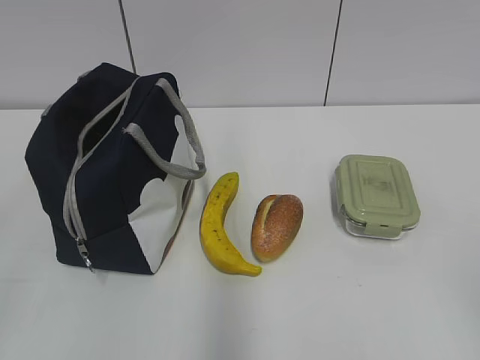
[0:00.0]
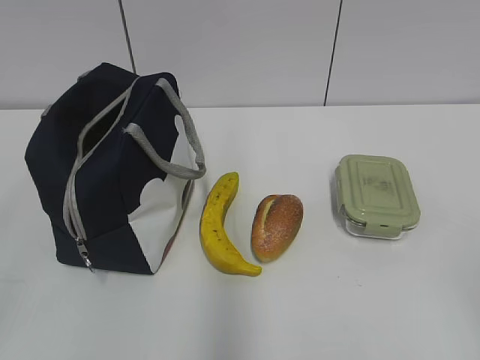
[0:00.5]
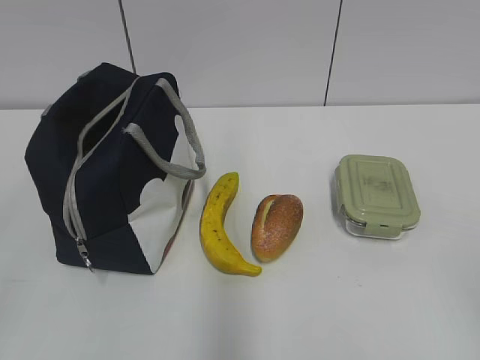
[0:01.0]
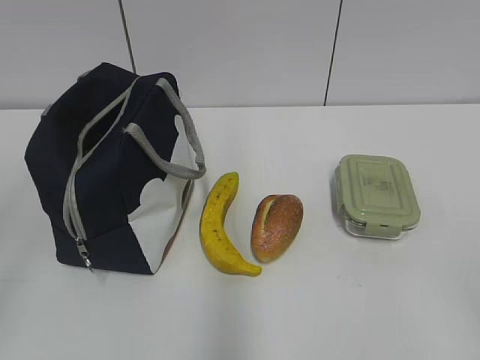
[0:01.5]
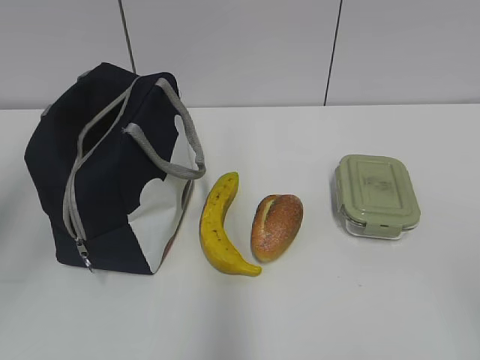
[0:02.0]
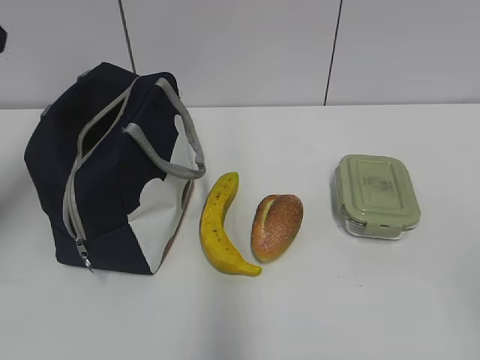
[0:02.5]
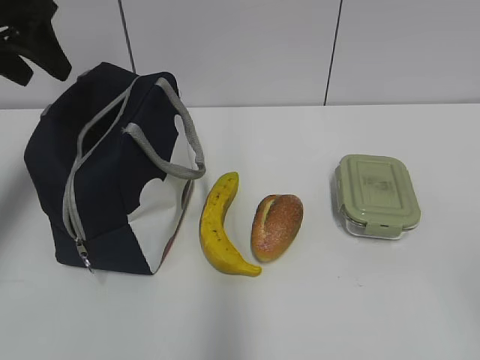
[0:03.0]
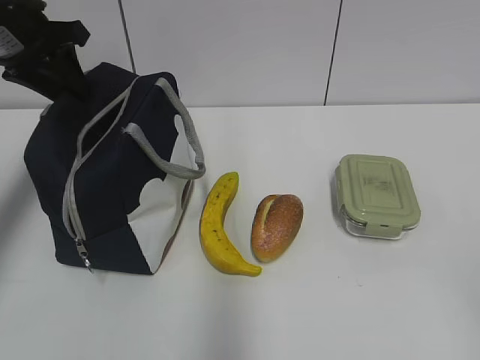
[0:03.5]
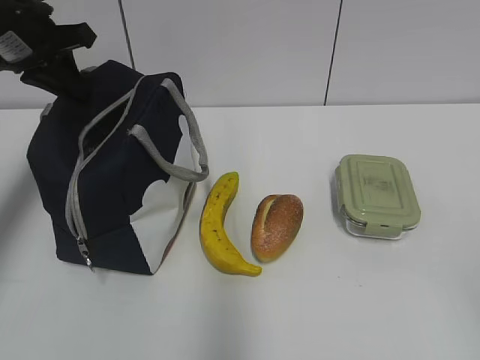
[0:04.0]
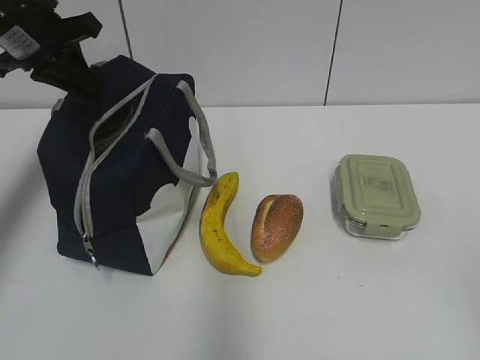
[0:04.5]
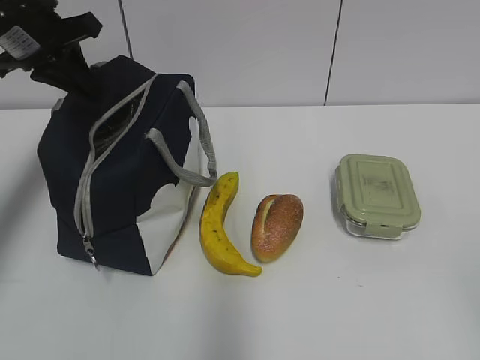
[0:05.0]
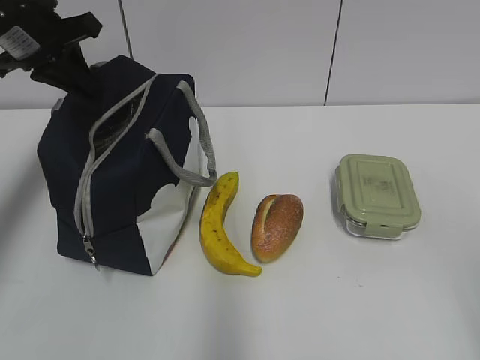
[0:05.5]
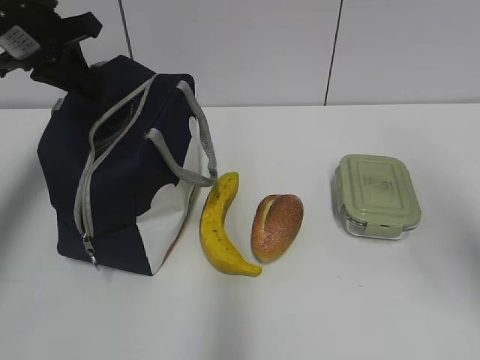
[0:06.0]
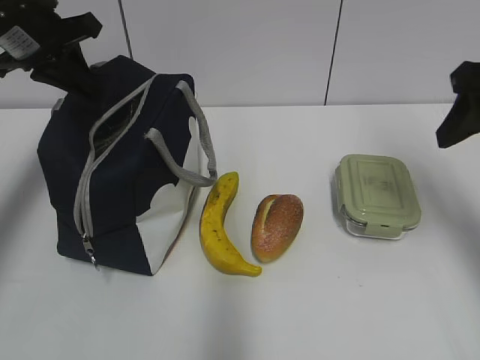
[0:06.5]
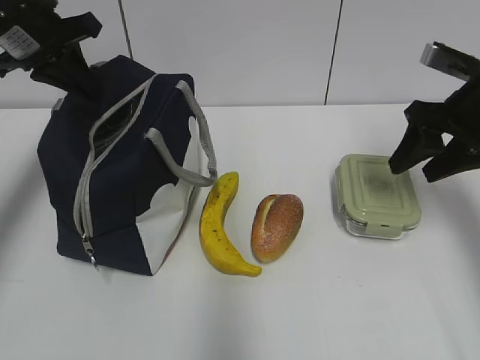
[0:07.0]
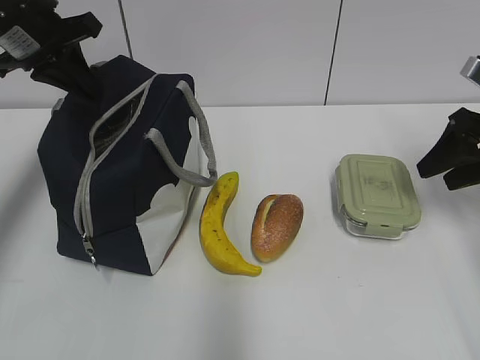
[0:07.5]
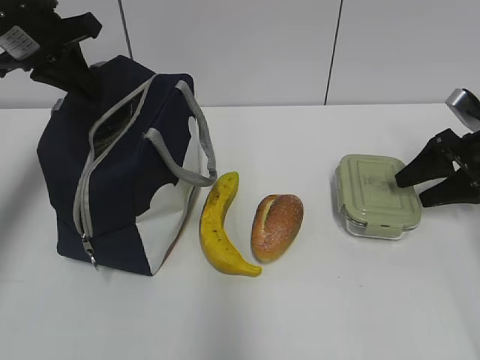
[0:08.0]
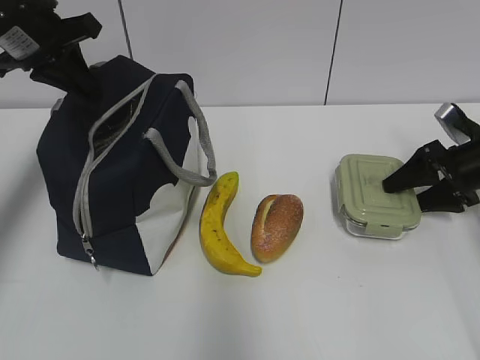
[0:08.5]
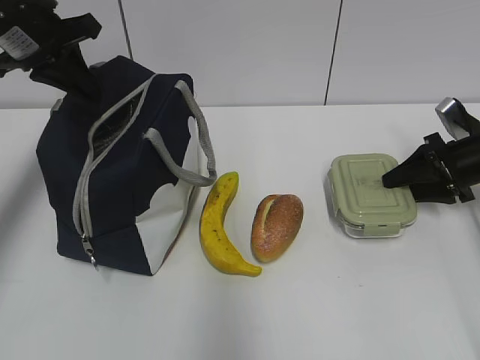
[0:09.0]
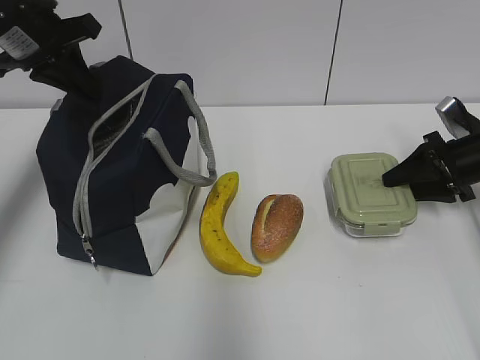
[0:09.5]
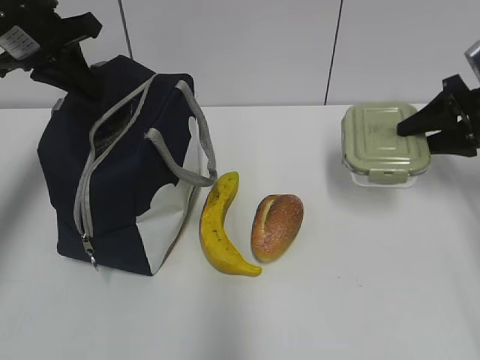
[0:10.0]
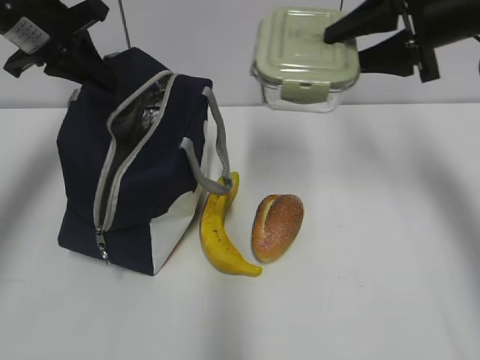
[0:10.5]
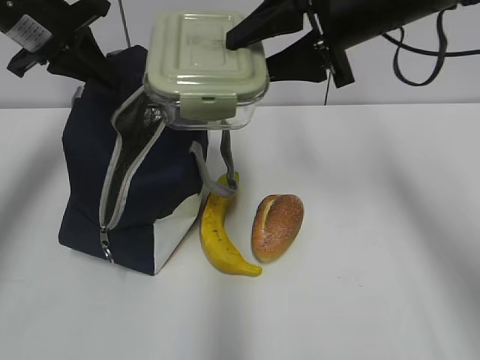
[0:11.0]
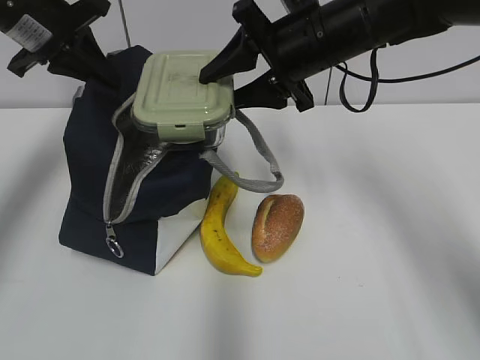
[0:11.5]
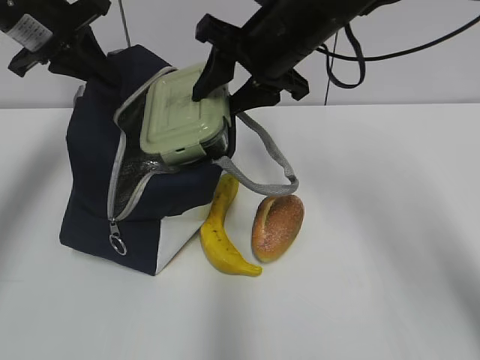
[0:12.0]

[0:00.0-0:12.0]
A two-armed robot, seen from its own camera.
Step, 0.0 to 9.5 s: Grab the lunch box with your right hand.
2.0 to 4.0 s: The left gripper travels forward by some 25 cm, and closes.
4.0 to 6.0 s: The right gripper shifts roughly 15 cm forward.
6.0 to 8.0 s: The right gripper shifts about 30 cm forward and downward.
8.0 to 10.0 s: The grippers stay close to where they were, moving slightly.
10.0 to 12.0 s: The right gripper shifts some 30 cm to the left.

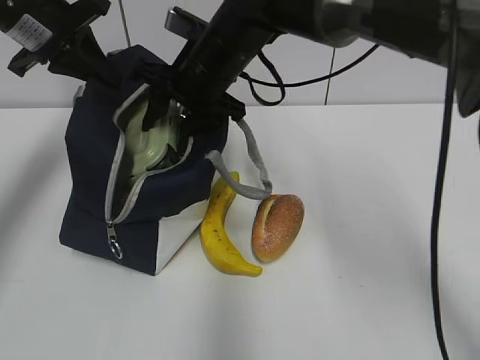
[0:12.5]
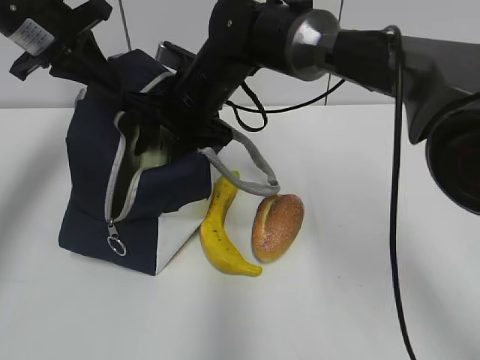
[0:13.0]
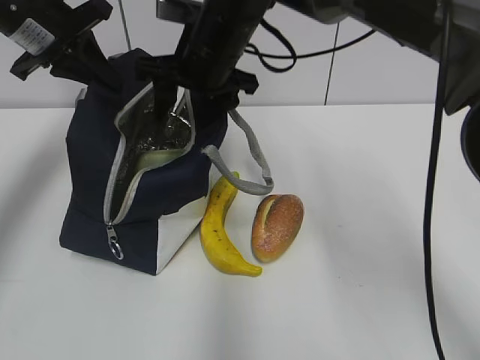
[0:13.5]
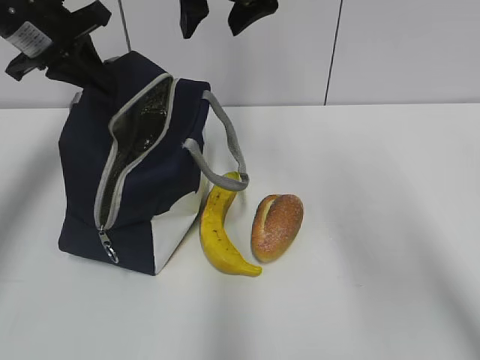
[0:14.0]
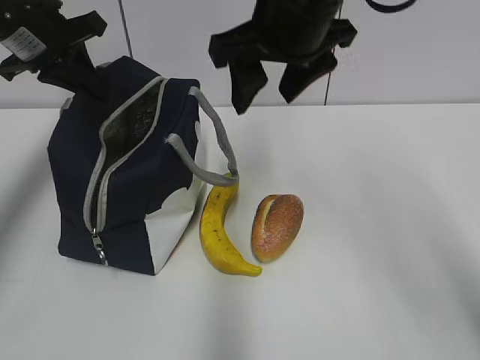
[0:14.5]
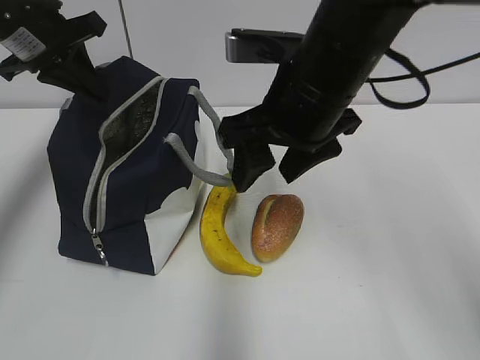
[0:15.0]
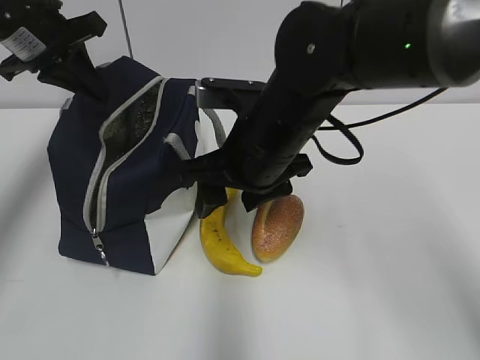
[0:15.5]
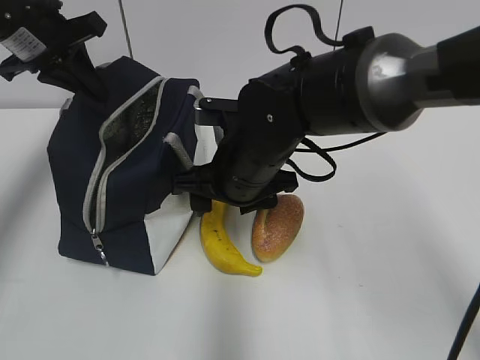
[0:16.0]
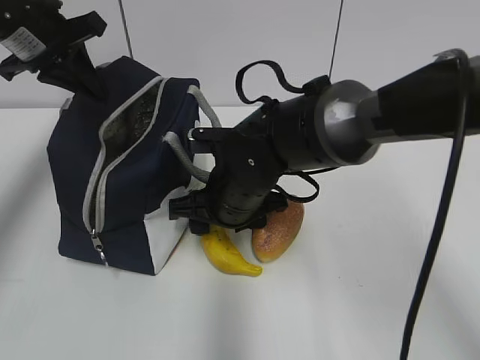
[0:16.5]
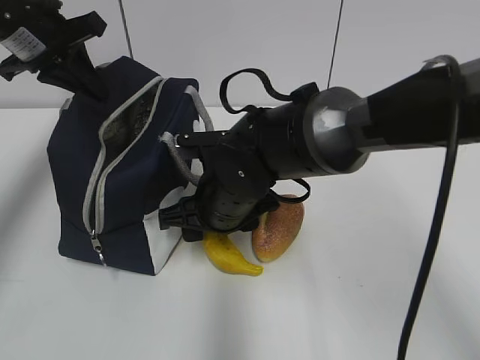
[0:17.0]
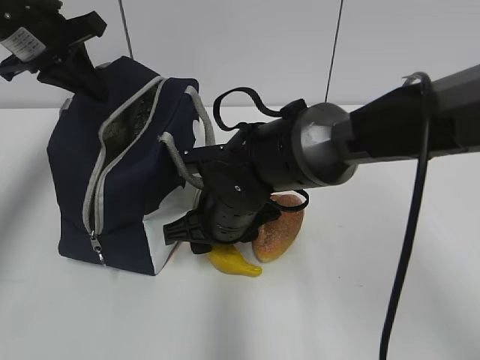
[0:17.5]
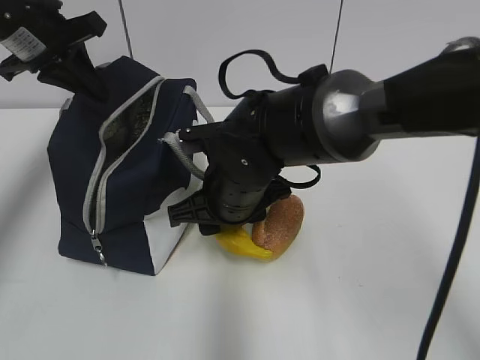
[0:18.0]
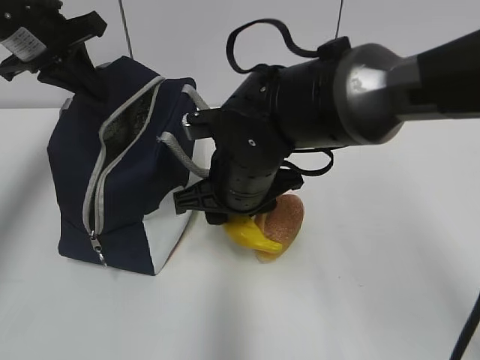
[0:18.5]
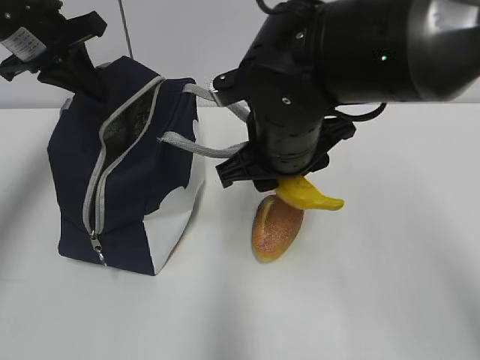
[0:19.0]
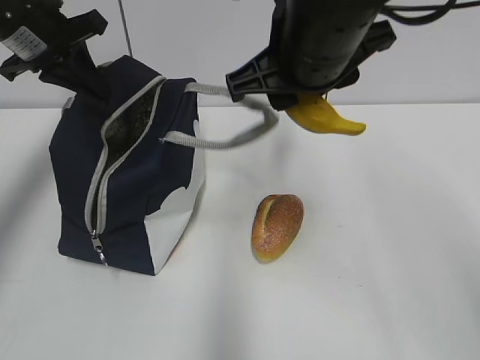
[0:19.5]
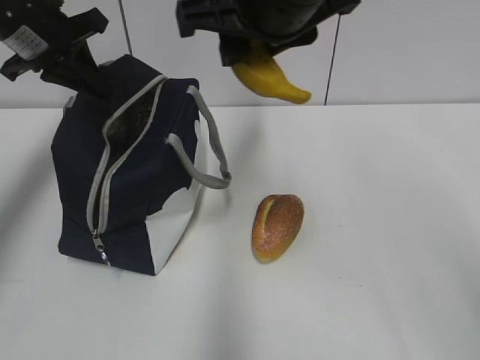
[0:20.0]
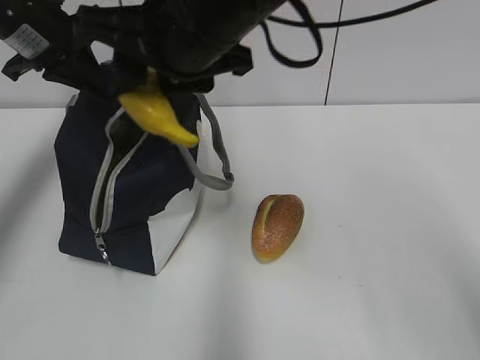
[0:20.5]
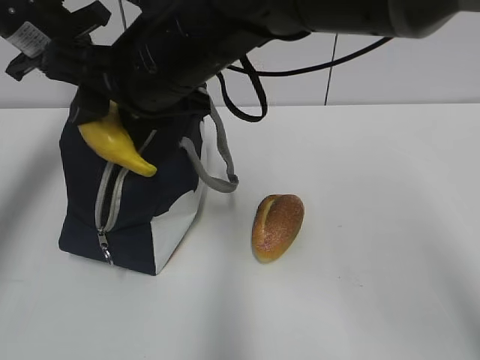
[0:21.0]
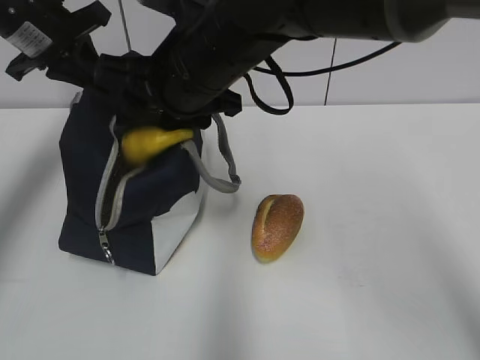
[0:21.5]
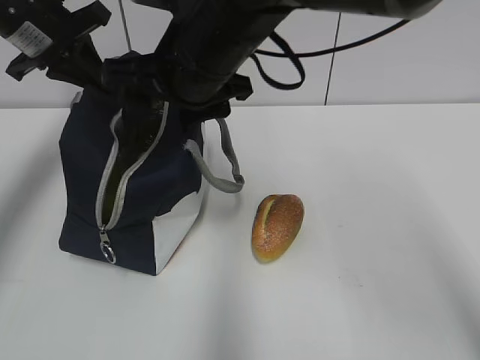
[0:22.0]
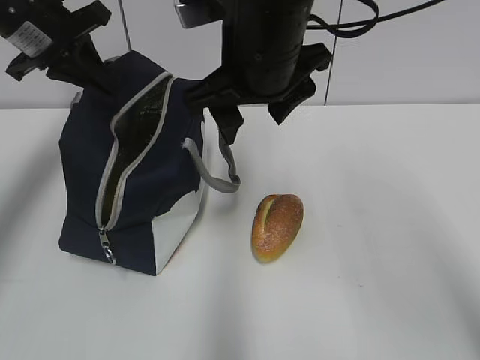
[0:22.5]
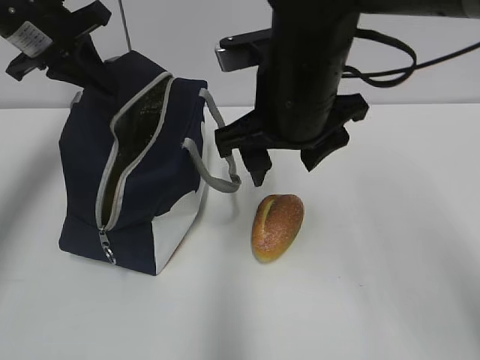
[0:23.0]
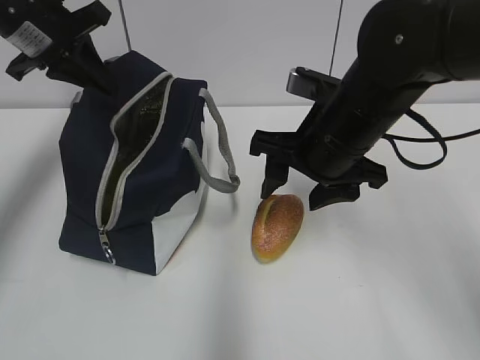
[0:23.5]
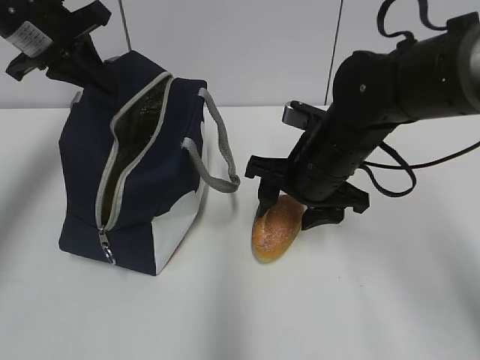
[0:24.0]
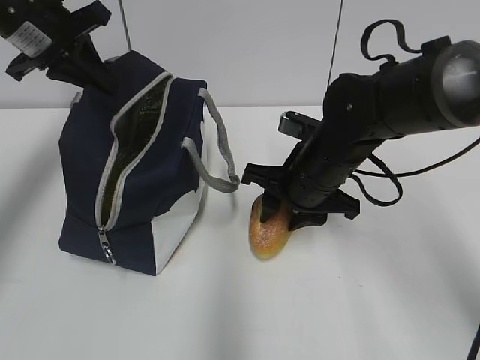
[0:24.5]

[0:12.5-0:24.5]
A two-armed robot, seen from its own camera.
Step, 13.5 to 17.5 s: Grab the banana with your right hand.
Step, 18.0 to 21.5 s: Place it into the bag with your right hand.
Step, 22.0 to 24.5 s: Grab the bread with your right hand.
12.5 to 14.5 s: The right gripper heads upward, to the right and backward, covering roughly 15 cm.
14.5 to 16.5 s: The right gripper goes some 20 cm downward.
16.5 to 18.5 s: The grippers make only small movements.
18.5 to 20.5 s: The right gripper is displaced upward by roughly 15 cm.
20.5 to 22.5 s: The right gripper moves approximately 5 cm.
22.5 to 24.5 s: The right gripper moves downward and to the right, about 15 cm.

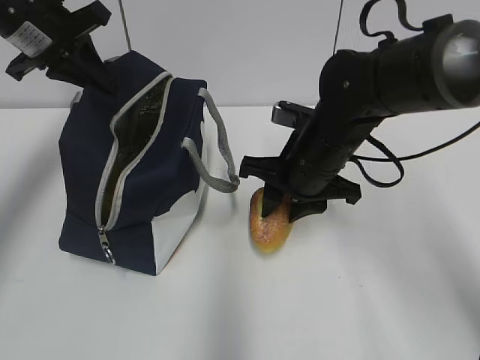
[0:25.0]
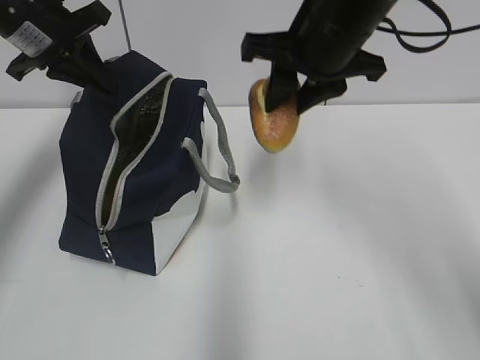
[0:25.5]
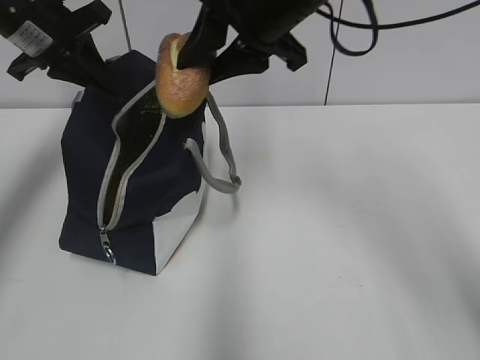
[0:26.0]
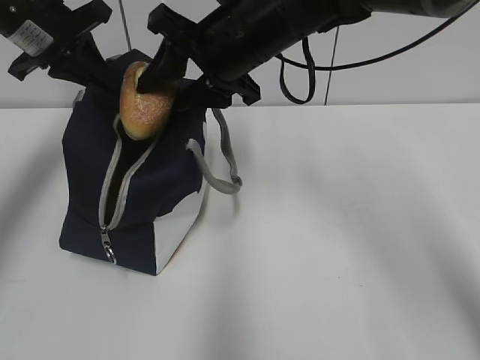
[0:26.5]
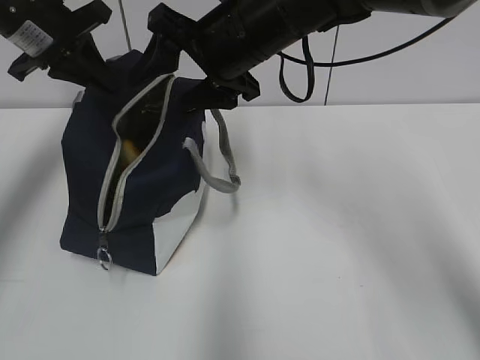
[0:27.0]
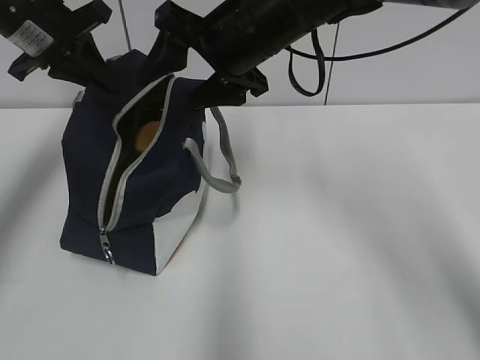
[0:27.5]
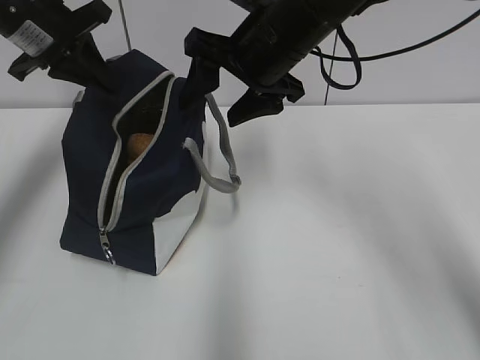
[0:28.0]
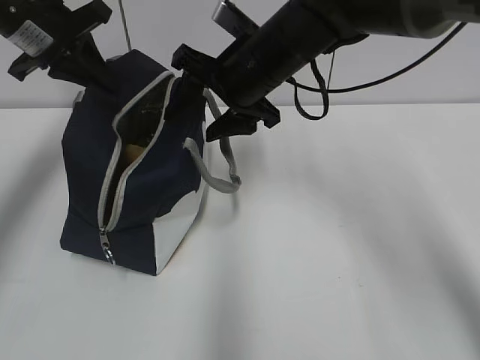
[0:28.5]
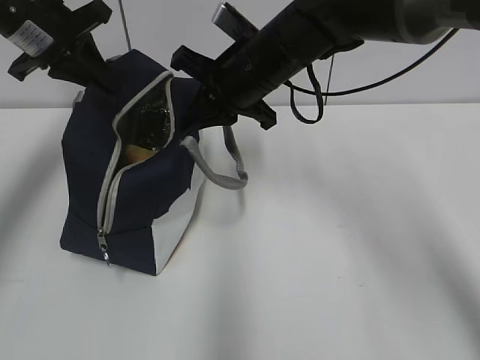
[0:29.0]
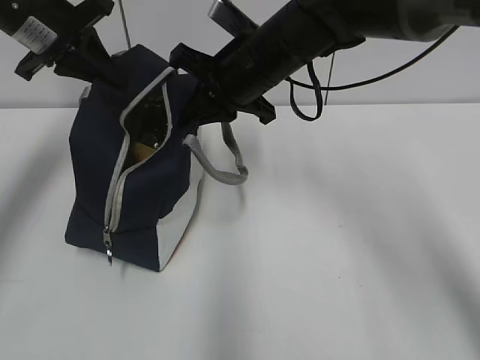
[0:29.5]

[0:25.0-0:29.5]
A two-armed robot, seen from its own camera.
Step, 27.0 to 29.0 s: Grab the lunch bag with your right hand.
25.0 to 27.0 s: The right gripper goes roughly 15 cm upward and to the left, and opens up.
27.0 to 29.5 s: The right gripper closes up.
